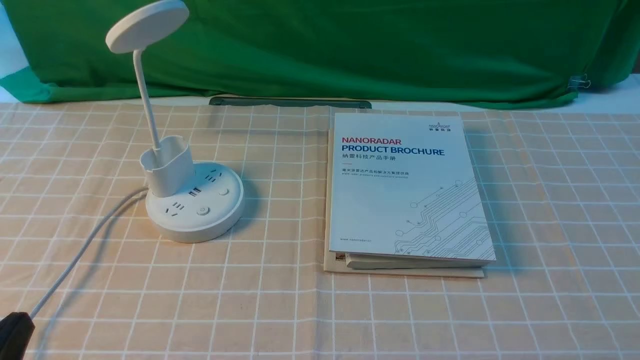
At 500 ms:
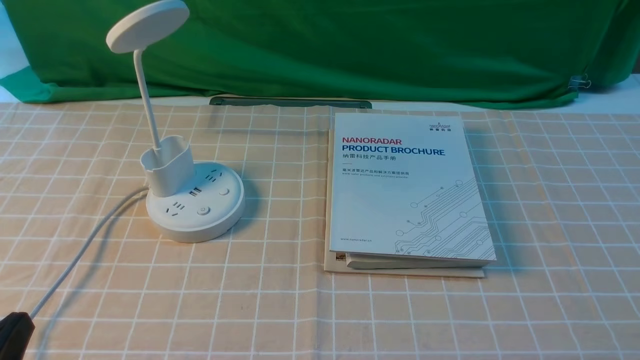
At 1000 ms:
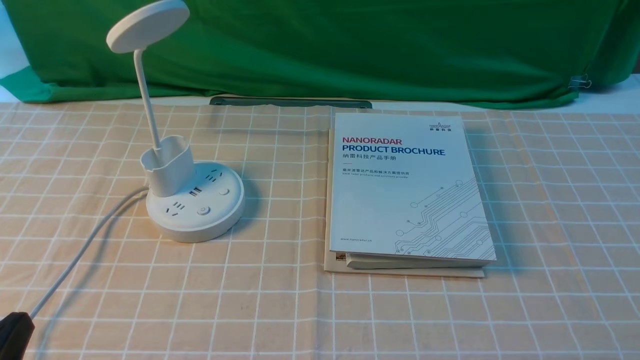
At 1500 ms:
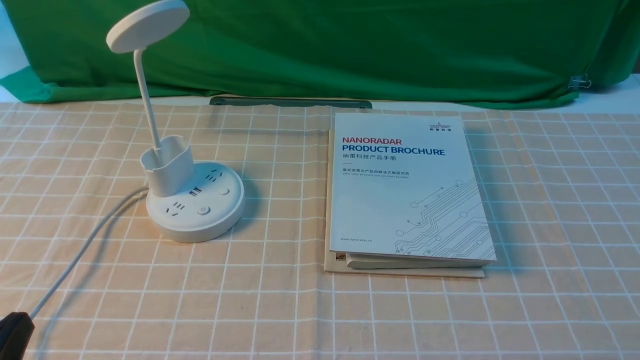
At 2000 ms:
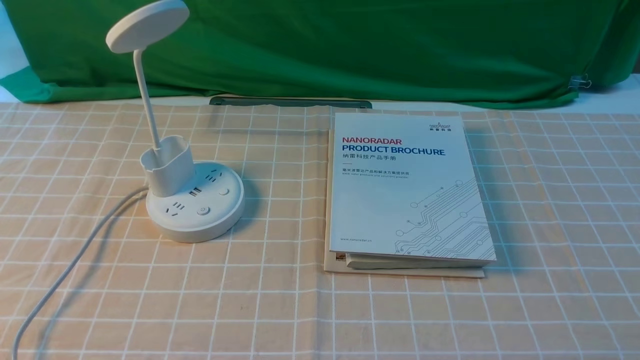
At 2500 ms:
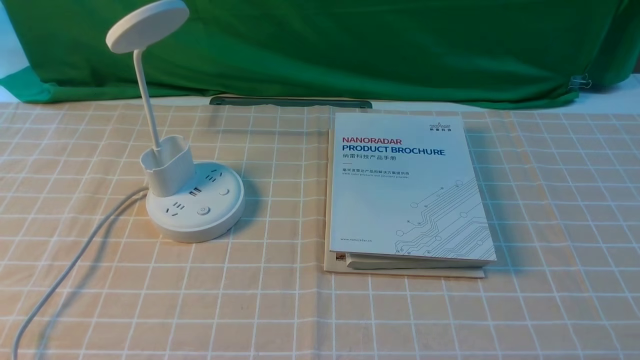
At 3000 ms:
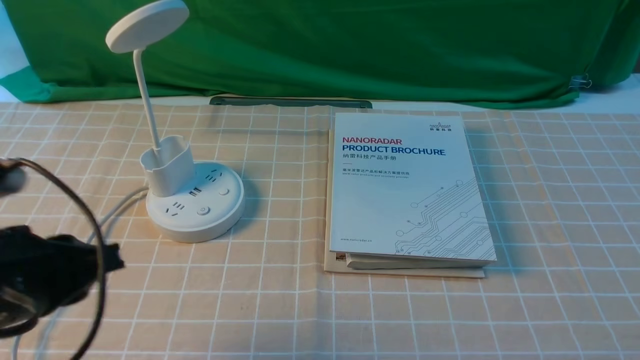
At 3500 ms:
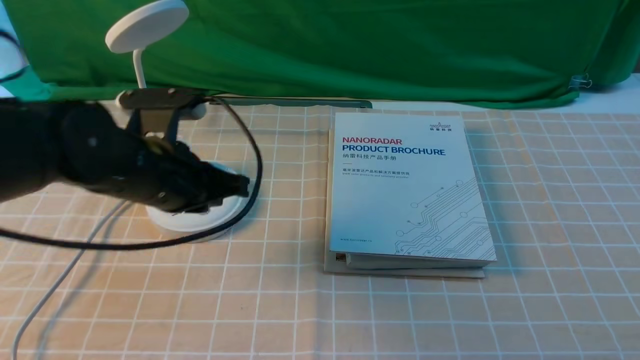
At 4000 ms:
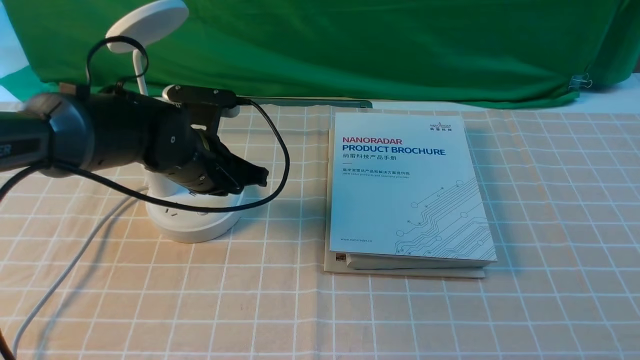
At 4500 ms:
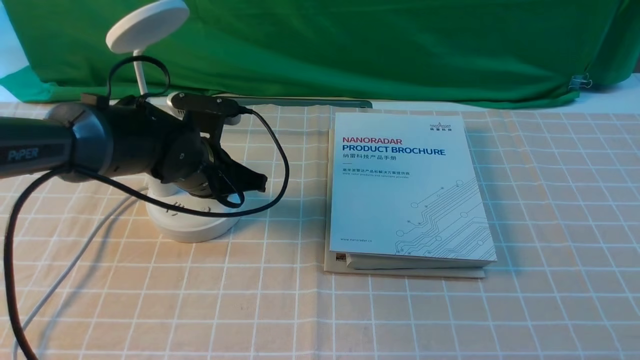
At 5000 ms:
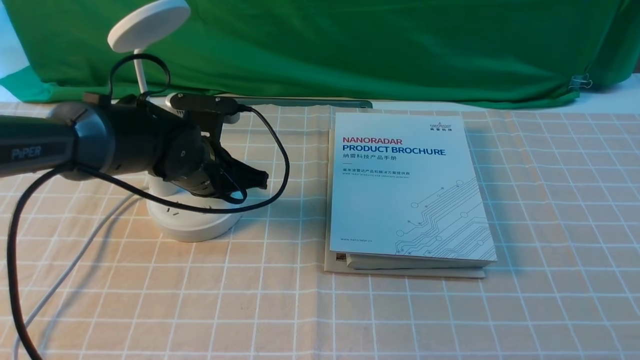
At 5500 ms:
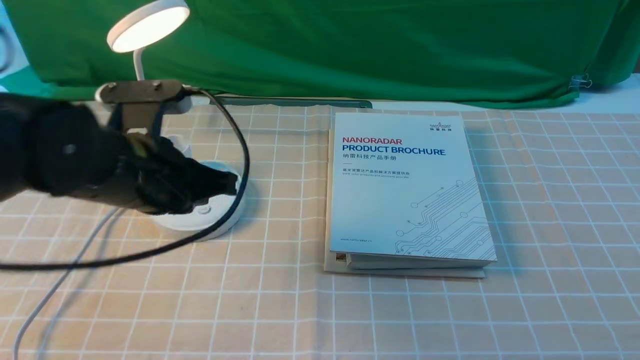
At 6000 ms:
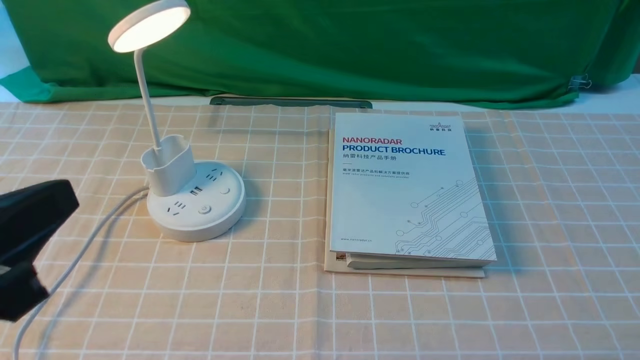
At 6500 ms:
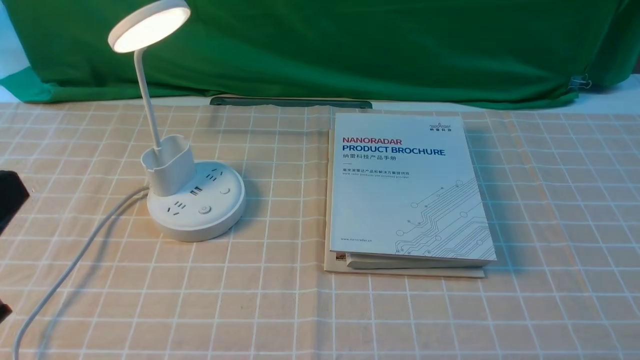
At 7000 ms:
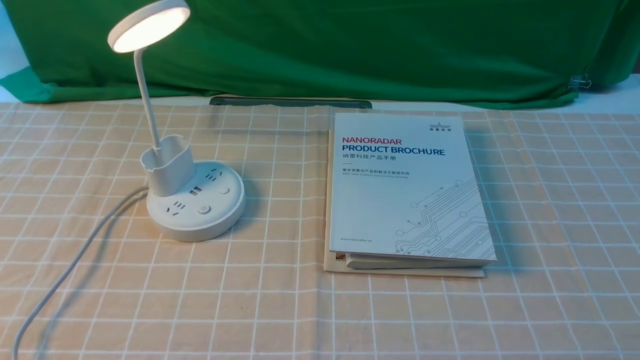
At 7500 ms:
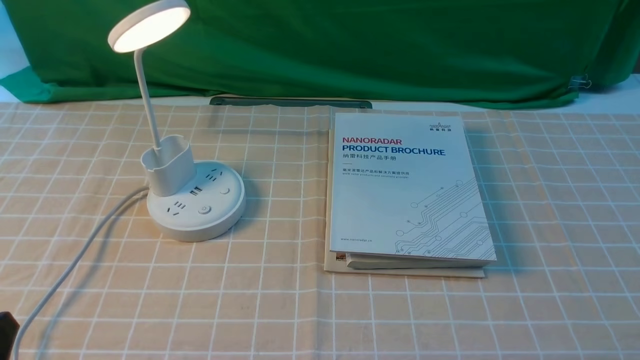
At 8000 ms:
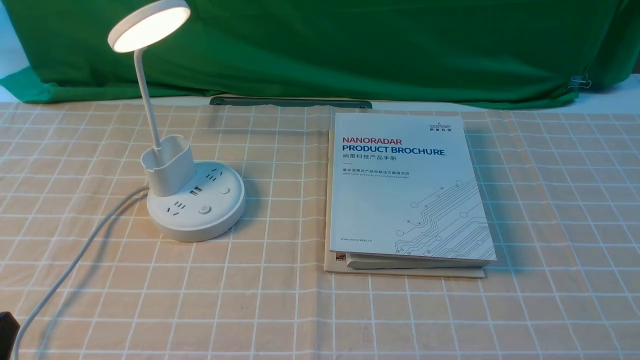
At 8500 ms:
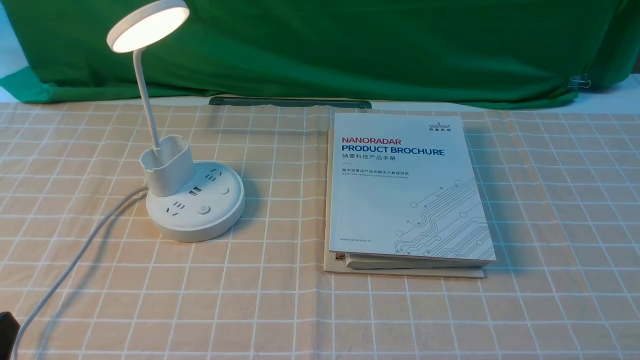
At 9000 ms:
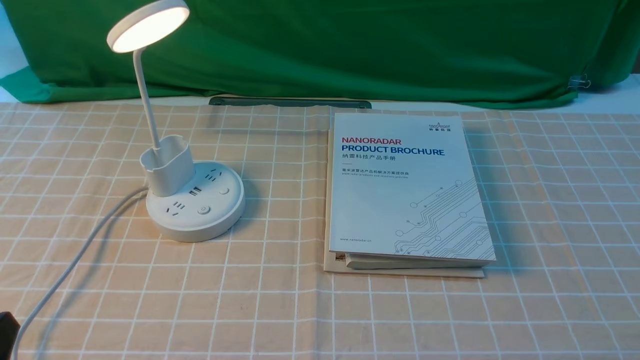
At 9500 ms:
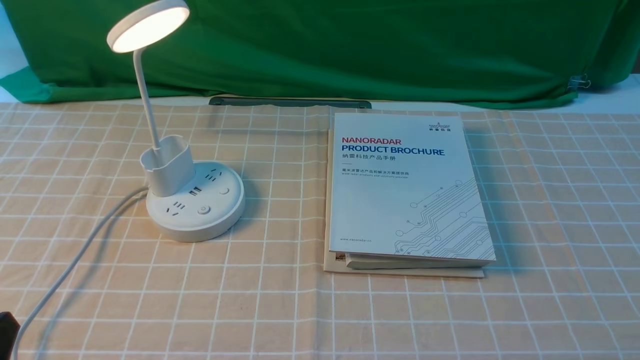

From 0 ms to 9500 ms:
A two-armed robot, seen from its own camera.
Step, from 0 ms to 5500 ms: use the left arm to press the button switch on the lamp holder.
From 2000 ms to 4000 ms: The left gripper shifts about 35 cm forward and to the right.
From 4000 ms to 5500 ms: The left gripper heads backward and upward, covering roughly 10 cm.
From 5500 ms to 7500 ms: The left gripper moves backward and to the left, about 25 cm.
From 7500 ms to 9500 ms: Both grippers stay about where they are.
